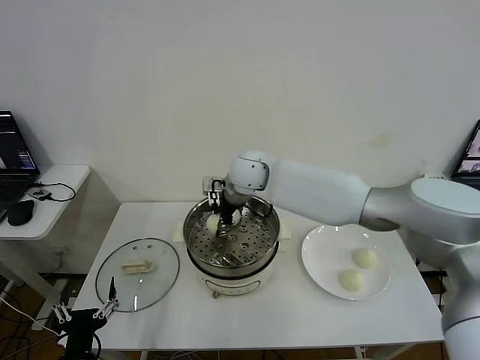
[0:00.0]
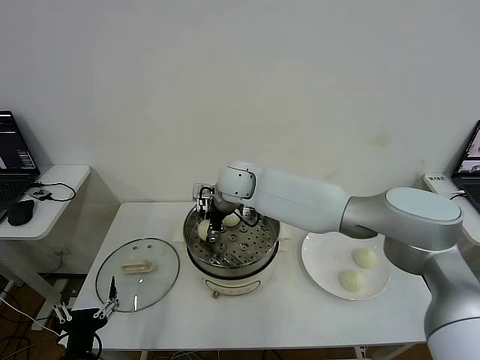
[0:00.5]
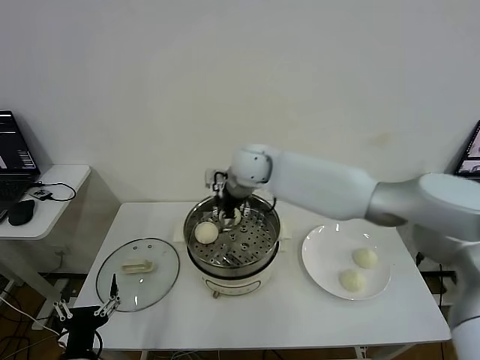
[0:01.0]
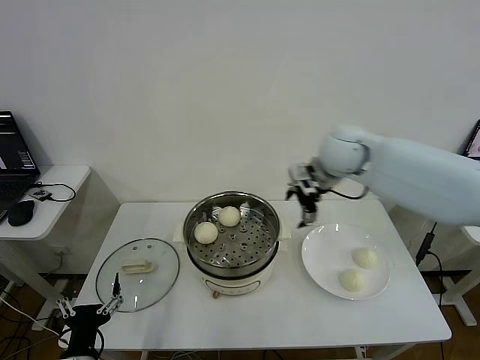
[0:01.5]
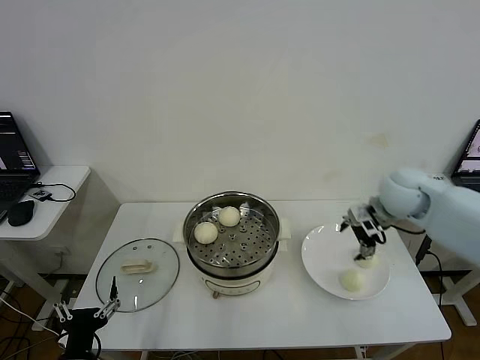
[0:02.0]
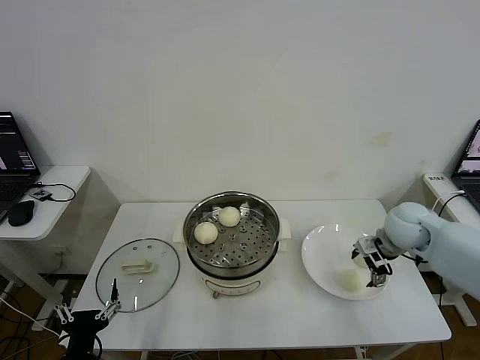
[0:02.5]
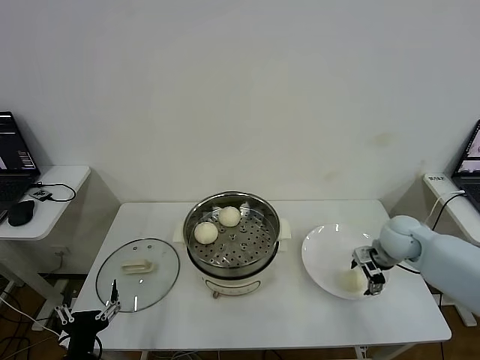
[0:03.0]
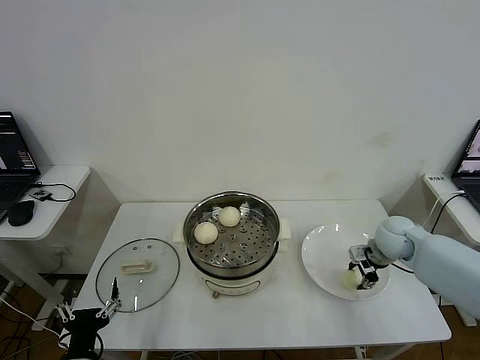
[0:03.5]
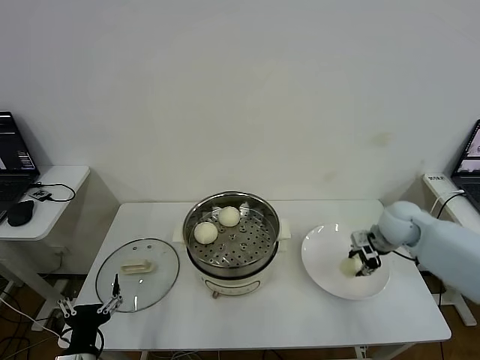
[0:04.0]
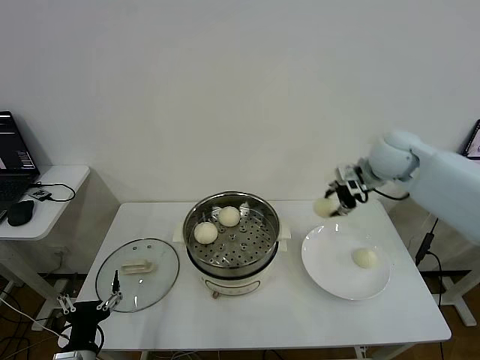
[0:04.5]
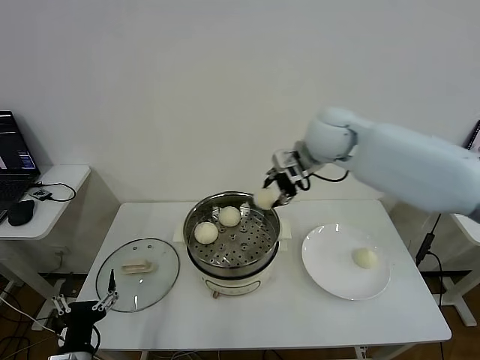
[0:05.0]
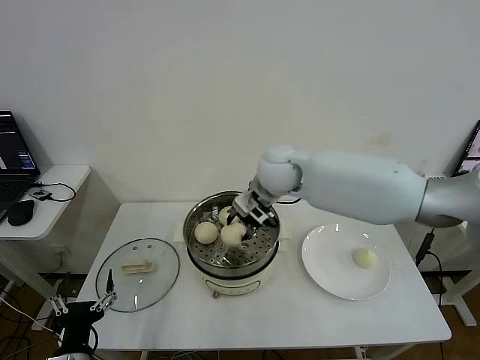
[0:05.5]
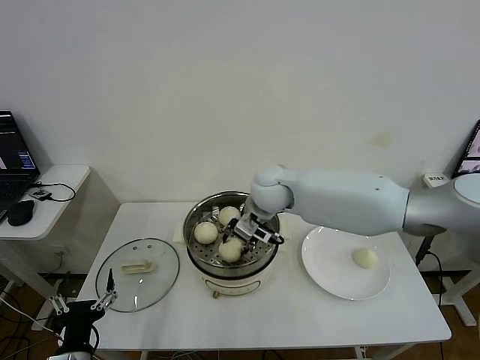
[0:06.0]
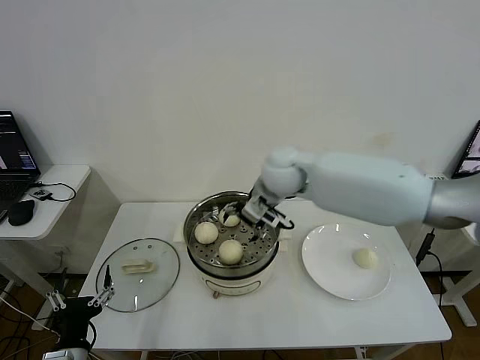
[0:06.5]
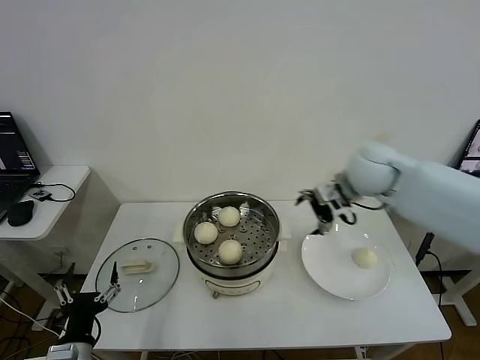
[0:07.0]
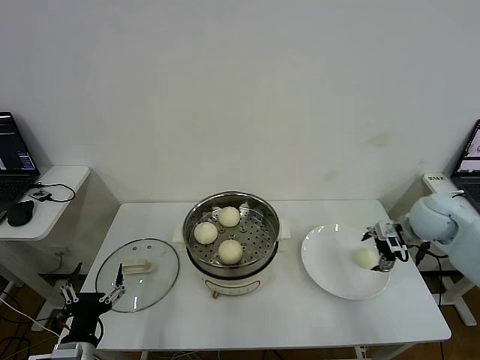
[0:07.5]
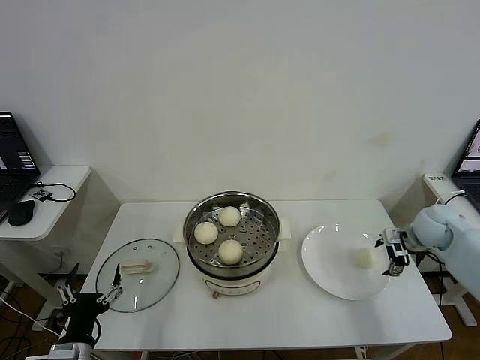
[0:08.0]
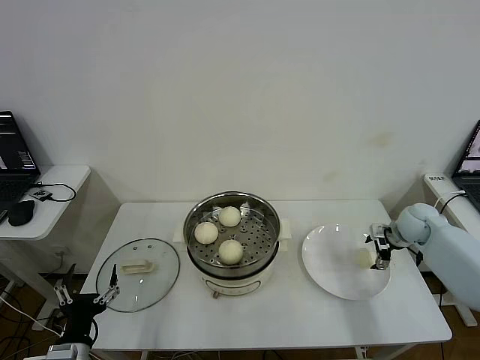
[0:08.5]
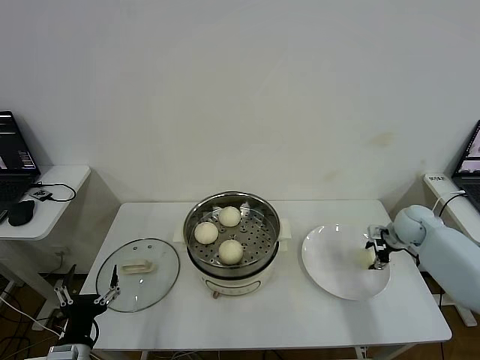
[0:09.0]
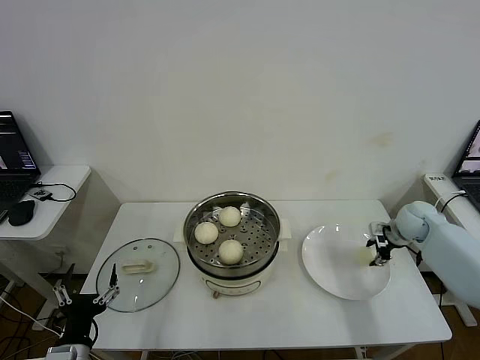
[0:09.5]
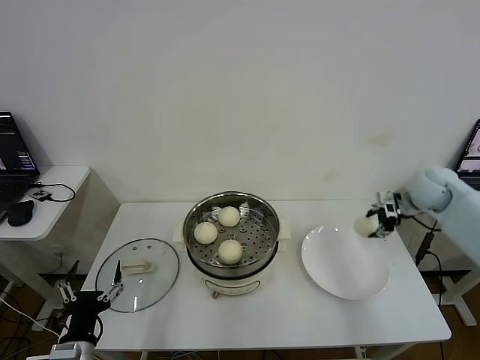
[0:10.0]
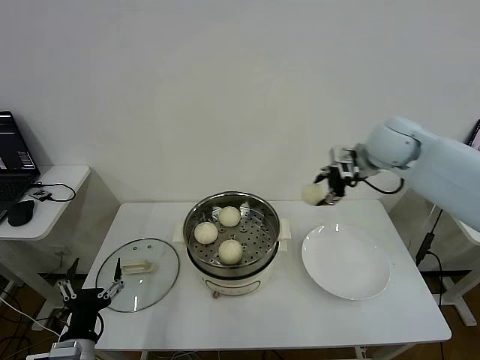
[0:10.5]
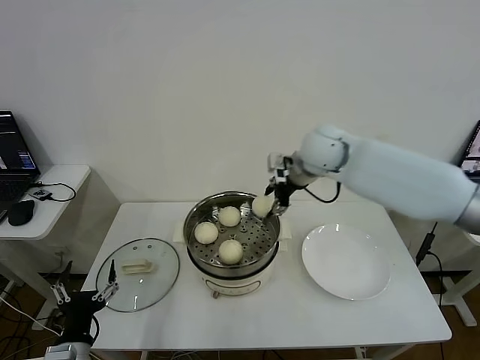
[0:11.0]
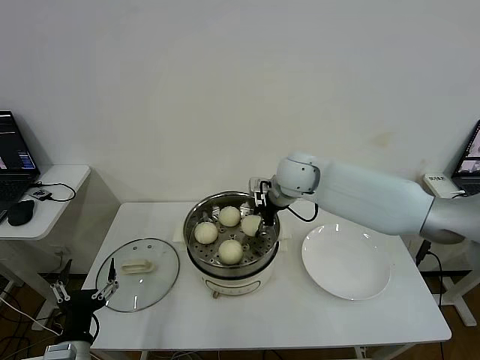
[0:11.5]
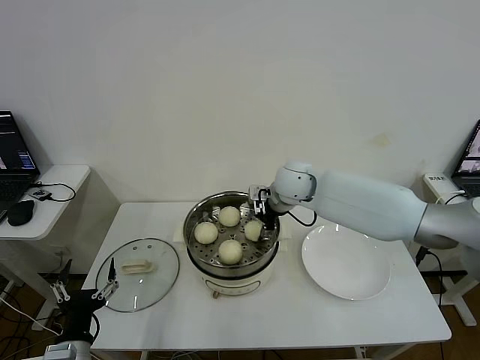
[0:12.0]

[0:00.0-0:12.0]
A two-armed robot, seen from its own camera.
Step, 0:01.0 to 0:03.5: Grasp the baozi in the plate with right gripper.
Step, 0:04.0 to 0:06.0: Place the baozi on the steamer with right gripper.
Step, 0:06.5 to 0:09.0: Grasp the baozi in the plate with right gripper.
0:00.0 to 0:02.0: The right gripper travels to the right by approximately 35 cm, and opens up.
0:02.0 to 0:04.0: The right gripper goes some 5 cm downward, and closes its fingers.
0:04.0 to 0:06.0: The right gripper travels to the left by roughly 30 cm.
0:06.0 to 0:08.0: The right gripper moves to the right, about 40 cm, and opens up.
0:08.0 to 0:10.0: The right gripper travels upward by about 10 cm, and closes.
0:10.0 to 0:12.0: The right gripper moves to the left, approximately 30 cm.

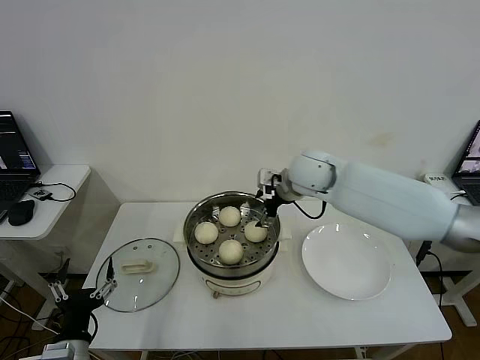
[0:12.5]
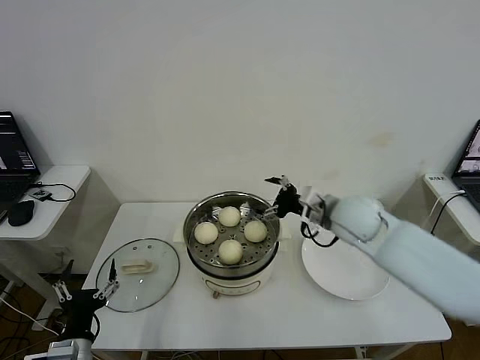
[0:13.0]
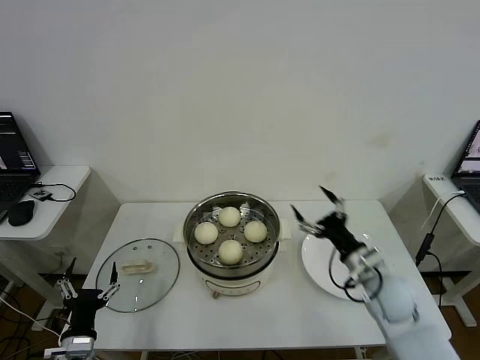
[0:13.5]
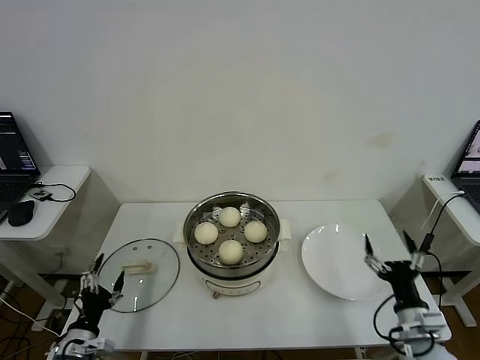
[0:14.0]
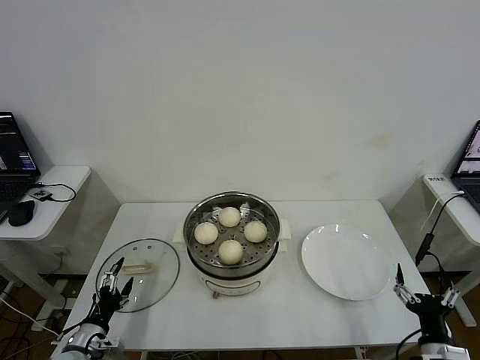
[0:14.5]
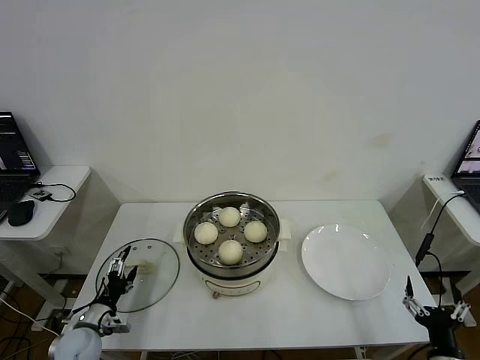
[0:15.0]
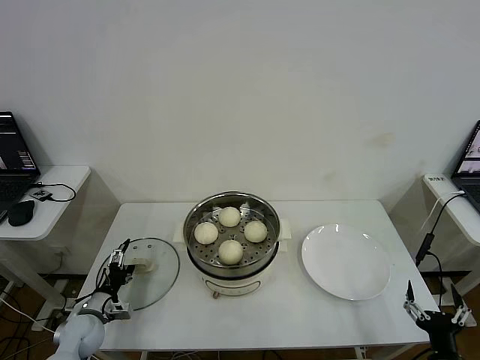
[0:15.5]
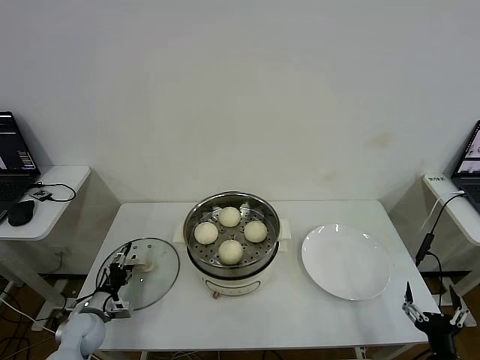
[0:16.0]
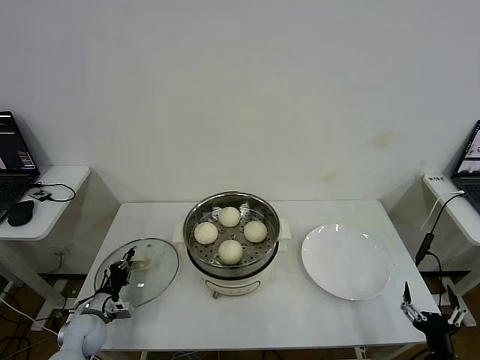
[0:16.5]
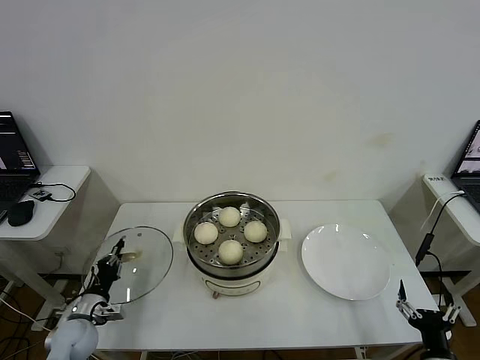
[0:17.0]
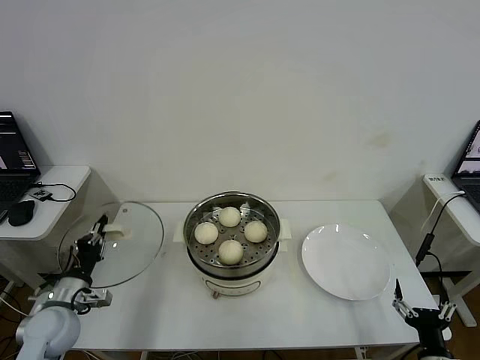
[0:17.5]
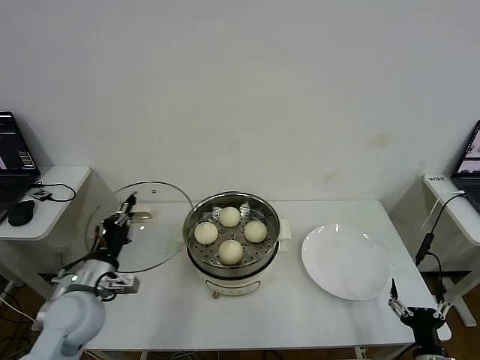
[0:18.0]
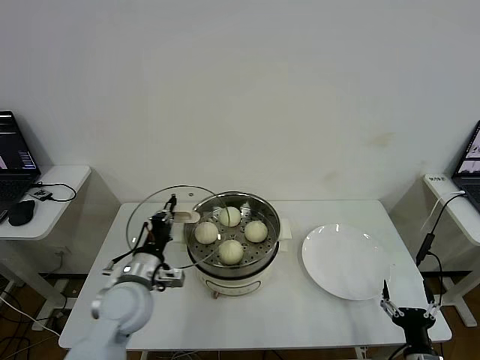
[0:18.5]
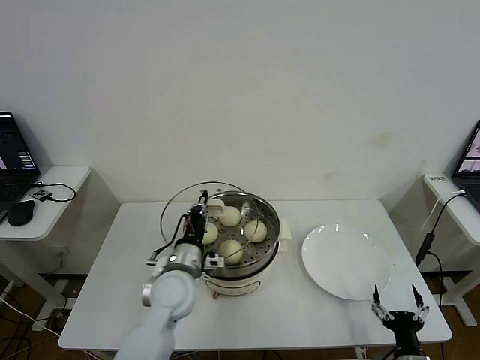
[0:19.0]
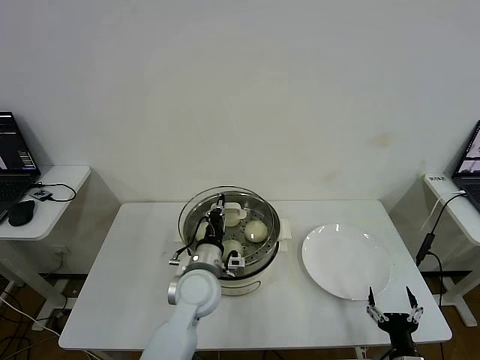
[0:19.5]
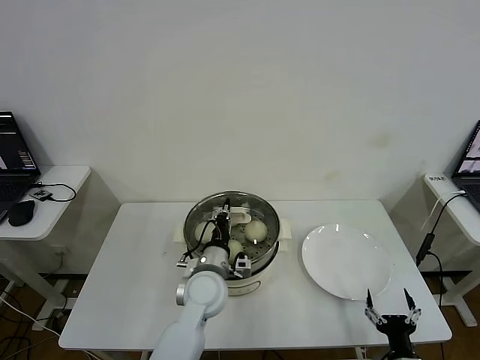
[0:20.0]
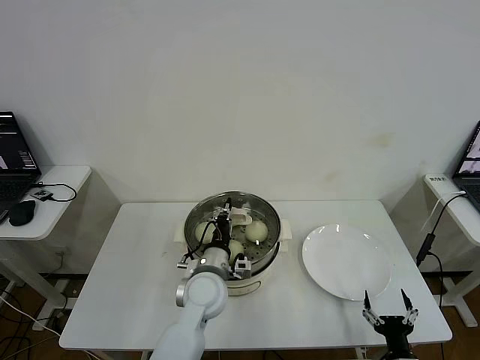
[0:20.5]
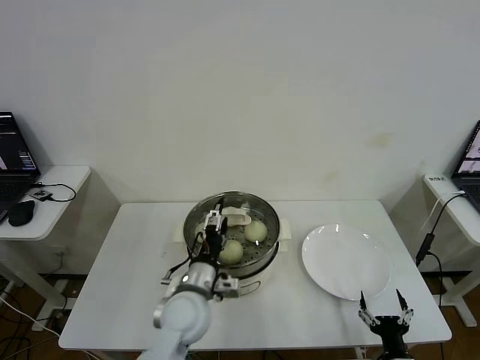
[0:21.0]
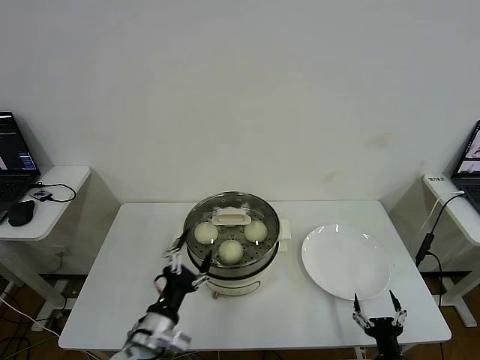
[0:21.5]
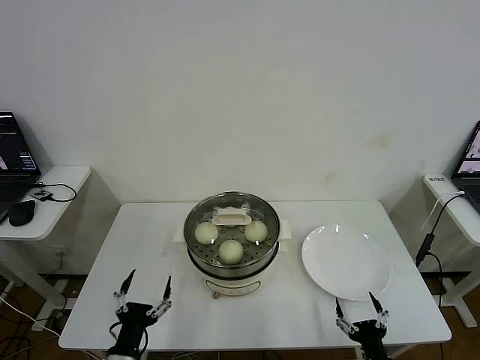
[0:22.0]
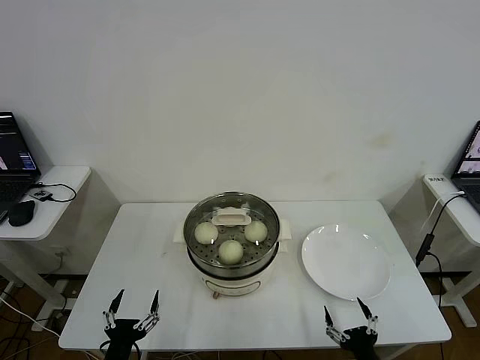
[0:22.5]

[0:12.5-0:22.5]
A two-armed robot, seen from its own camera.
Step, 0:12.5 to 0:16.5: Grasp the pot lid with left gripper.
Step, 0:17.0 to 0:20.5: Place the pot lid on the steamer with left gripper.
0:12.5 to 0:14.5: The right gripper goes roughly 50 cm backward, downward and to the right; the left gripper goes some 10 cm downward, to the left and forward.
0:14.5 to 0:16.5: The left gripper shifts approximately 10 cm forward, and closes its fingers.
0:16.5 to 0:18.5: The left gripper heads upward and to the right, covering some 25 cm.
0:18.5 to 0:20.5: The left gripper shifts some 15 cm to the right.
0:20.5 to 0:22.5: The left gripper travels backward and to the left by some 30 cm, and opens up, while the right gripper moves to the left, some 5 cm.
